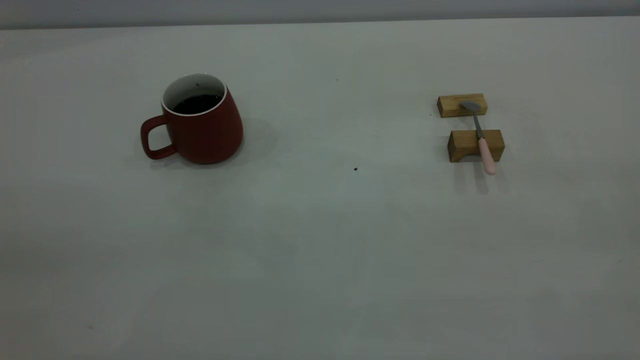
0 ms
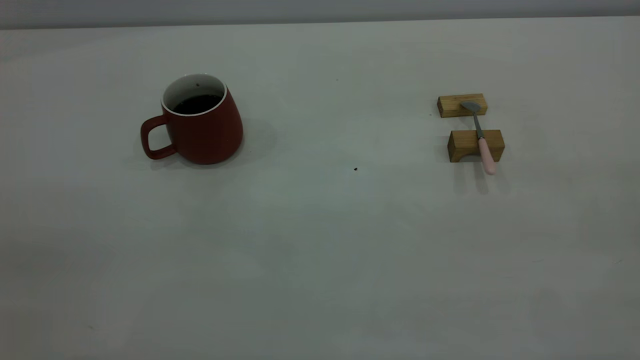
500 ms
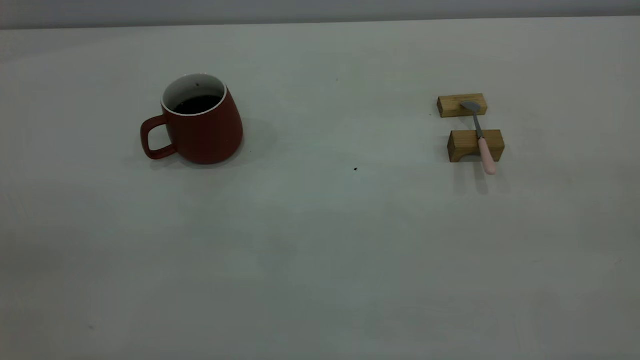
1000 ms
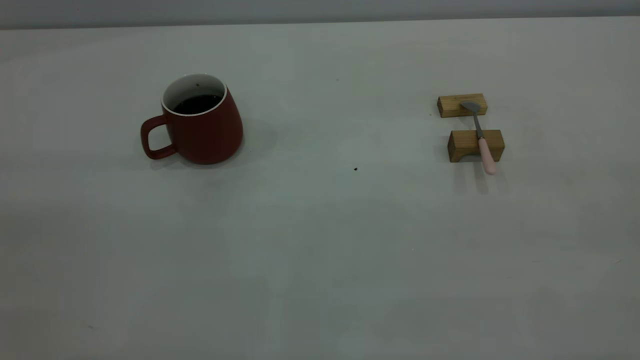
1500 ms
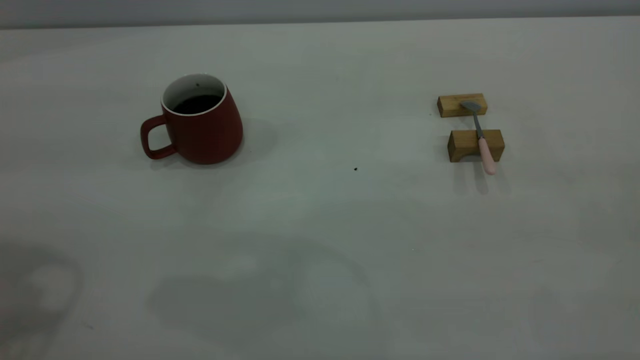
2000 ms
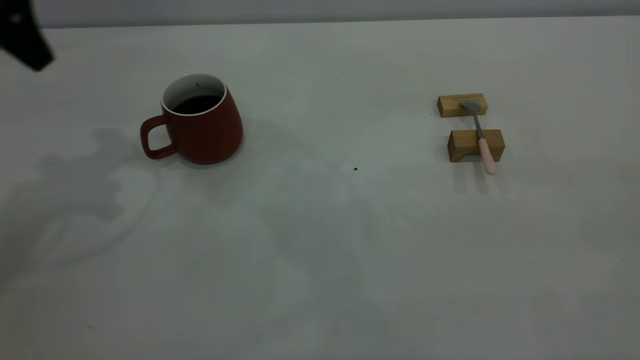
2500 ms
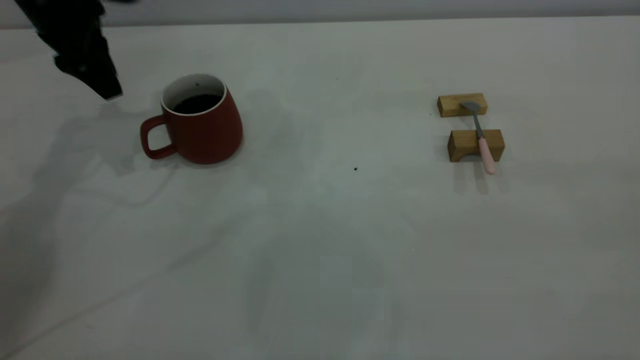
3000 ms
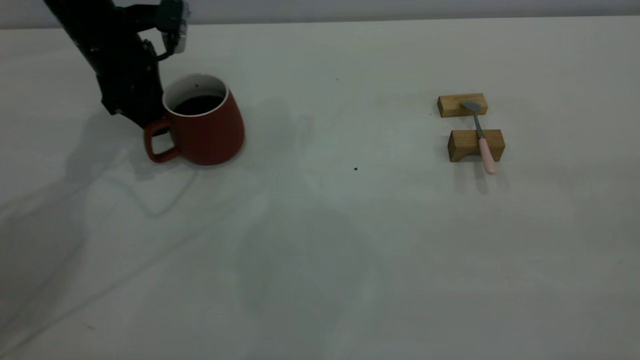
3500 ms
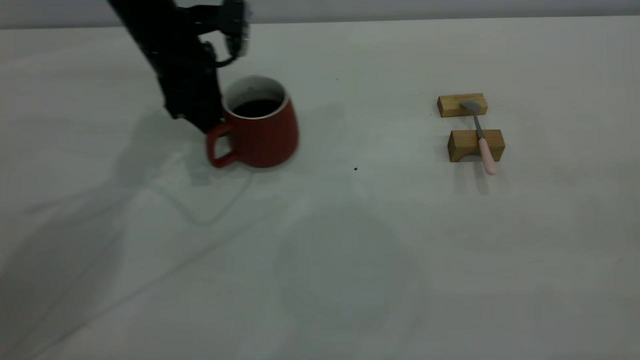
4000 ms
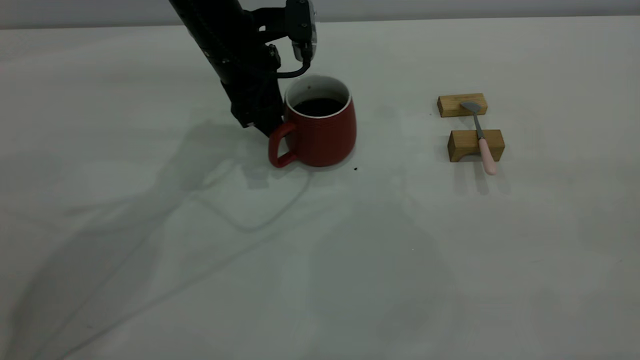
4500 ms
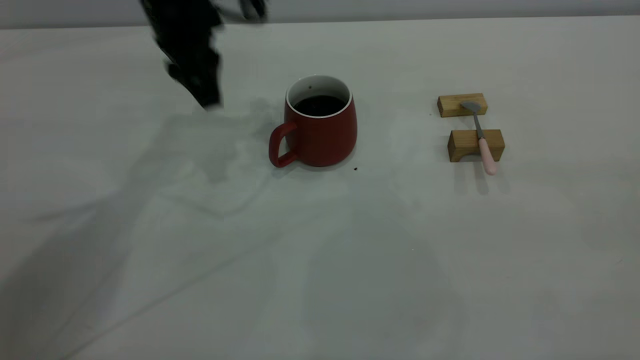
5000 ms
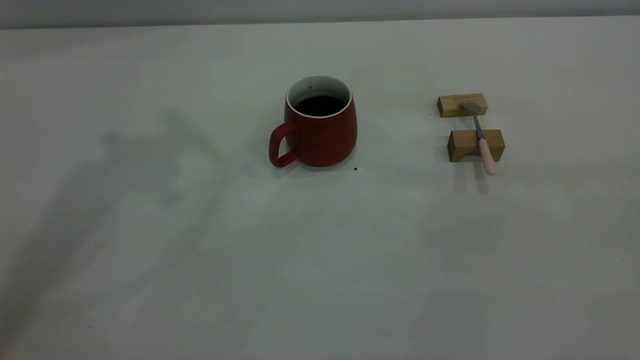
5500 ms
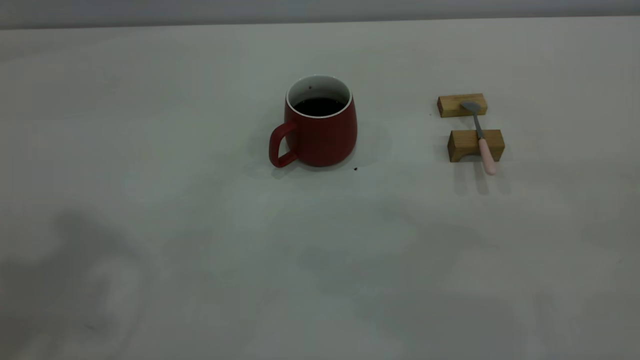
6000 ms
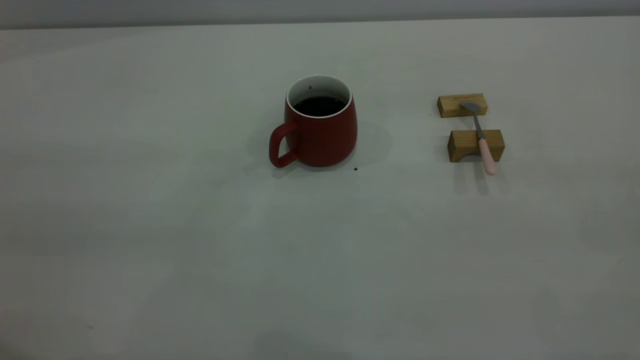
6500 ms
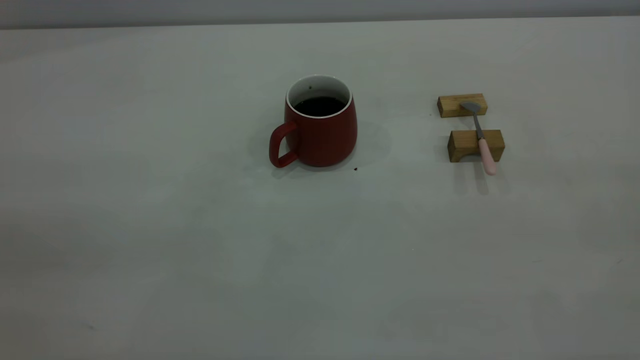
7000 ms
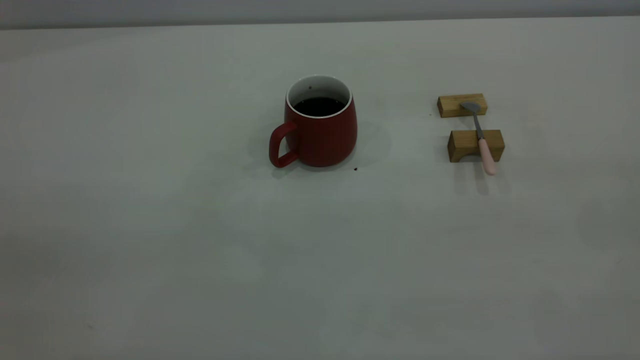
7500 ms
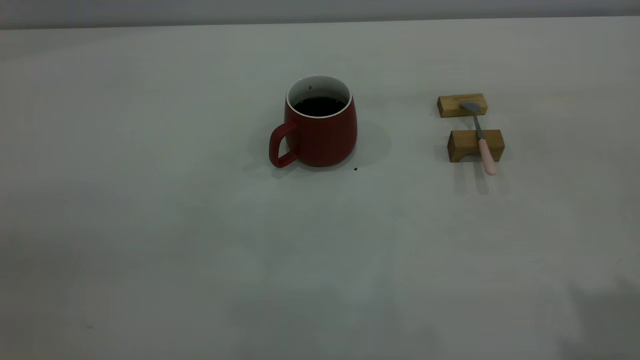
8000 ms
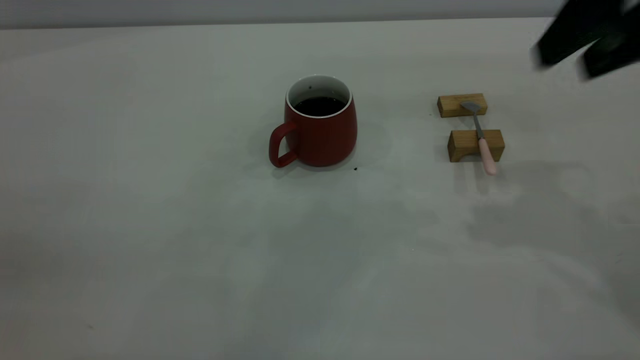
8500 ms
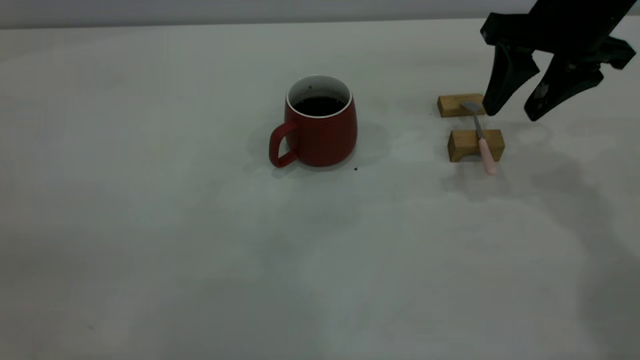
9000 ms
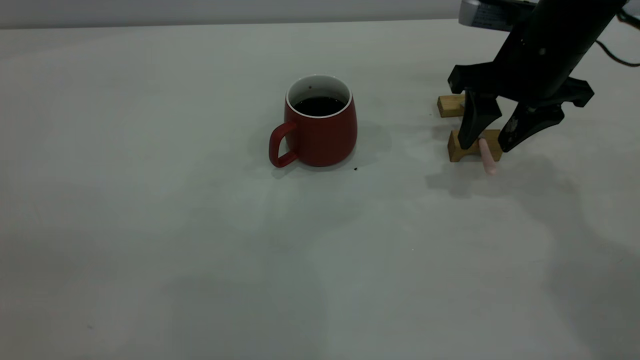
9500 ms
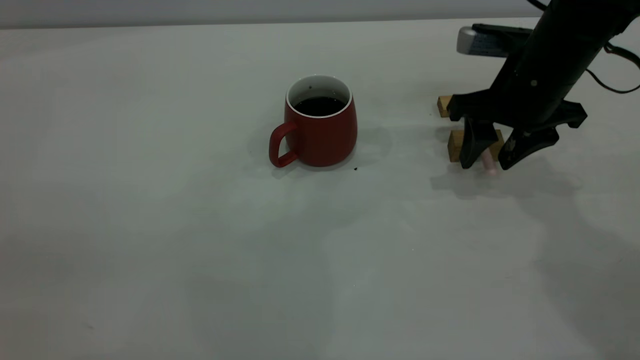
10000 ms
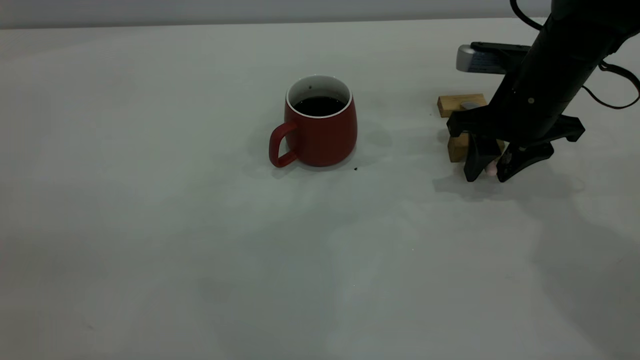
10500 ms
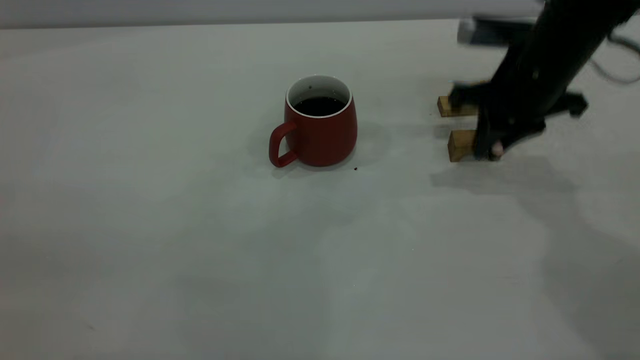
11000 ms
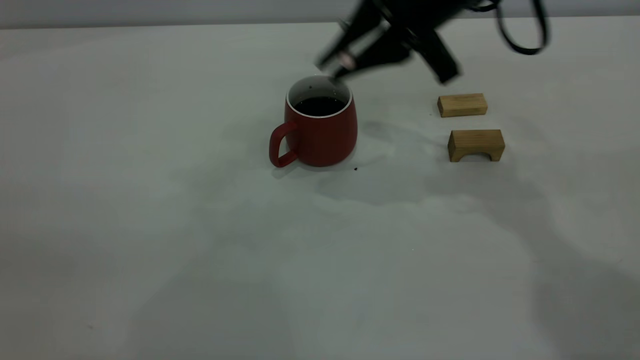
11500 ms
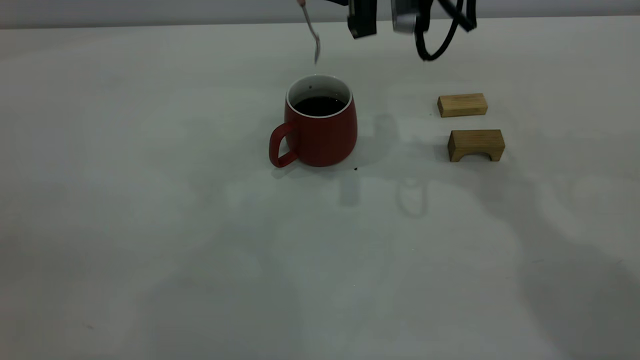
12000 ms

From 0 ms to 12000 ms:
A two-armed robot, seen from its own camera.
Step, from 0 ms to 4500 ms: Move the cup with coffee to the center of view.
Step, from 5000 ms to 11000 ms: Pick up the spoon.
From 2000 ms to 4000 ms: The left gripper travels forward, downward and to the right by approximately 35 cm.
From 4000 ms to 6000 ms: The left gripper travels upward and backward by some 40 cm.
From 8000 ms to 10000 ms: The right gripper is displaced downward and forward by approximately 35 cm.
From 10000 ms to 12000 ms: The right gripper goes about 15 cm to the left and upward, and closes up.

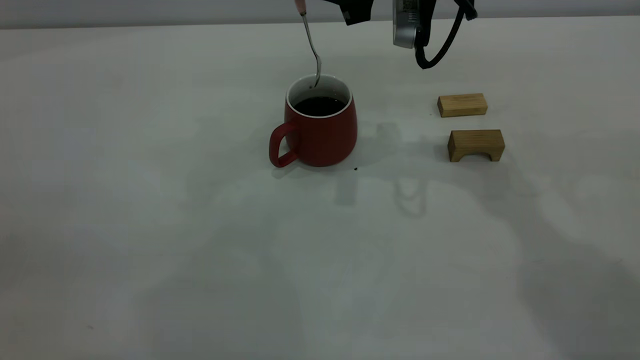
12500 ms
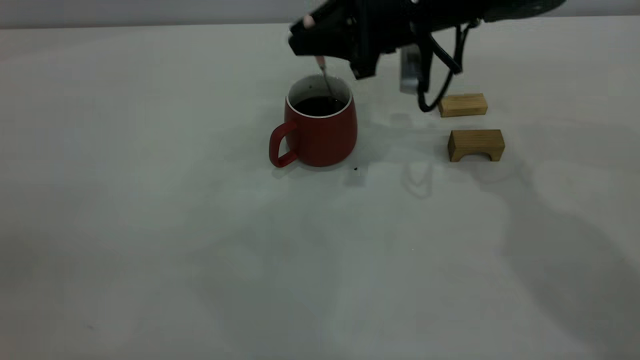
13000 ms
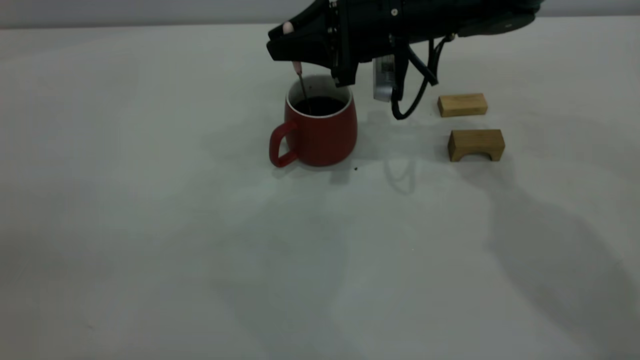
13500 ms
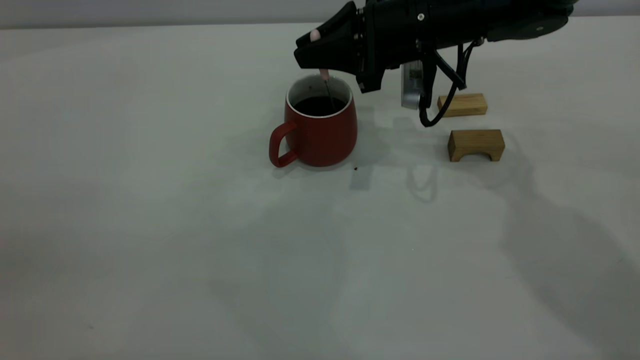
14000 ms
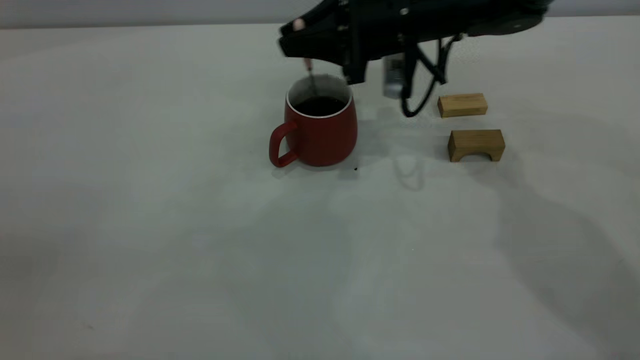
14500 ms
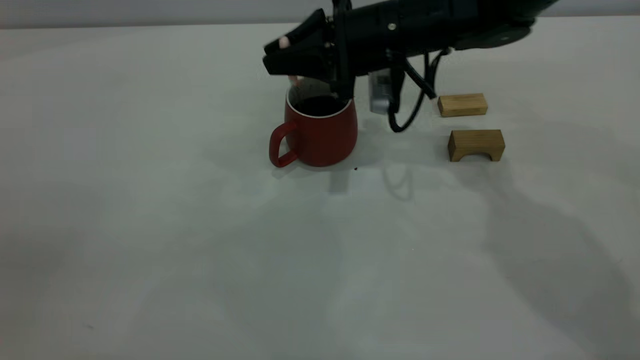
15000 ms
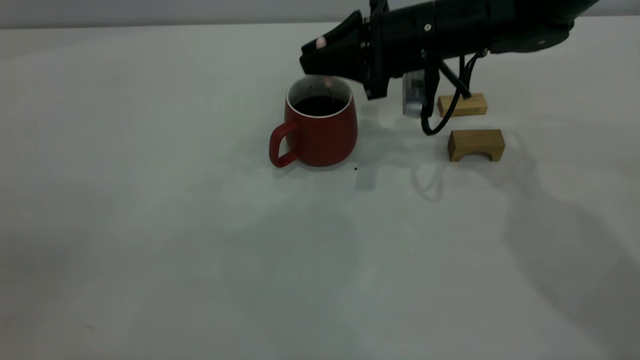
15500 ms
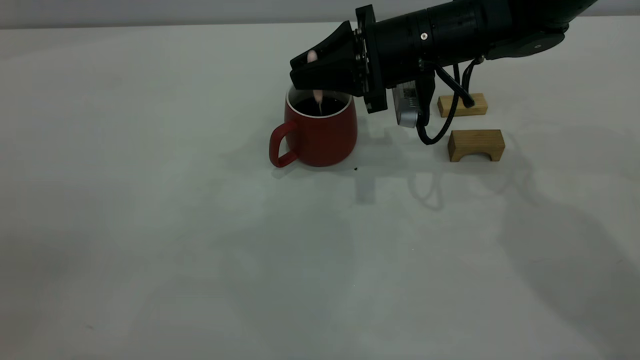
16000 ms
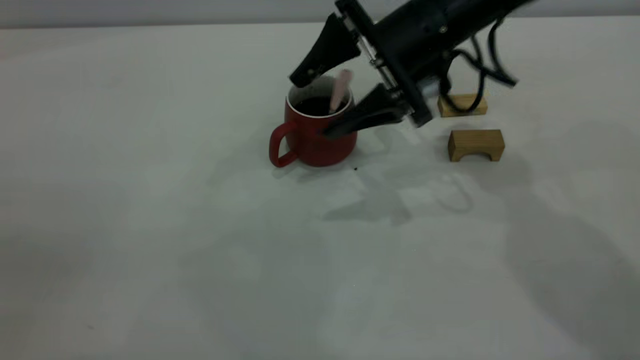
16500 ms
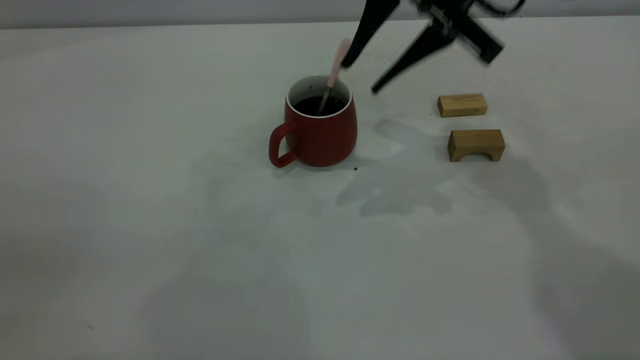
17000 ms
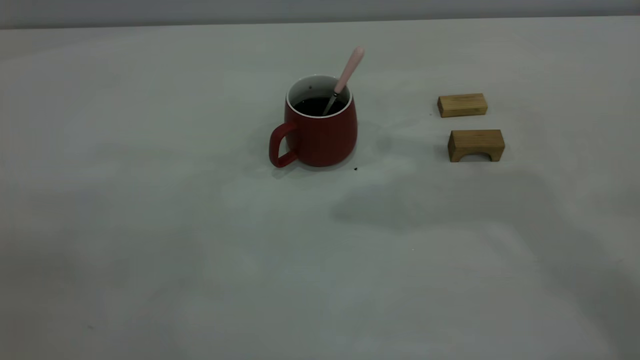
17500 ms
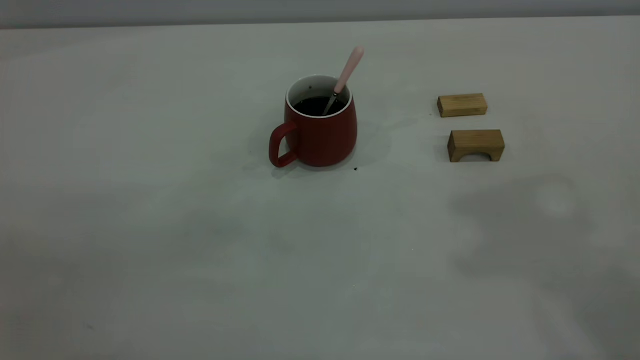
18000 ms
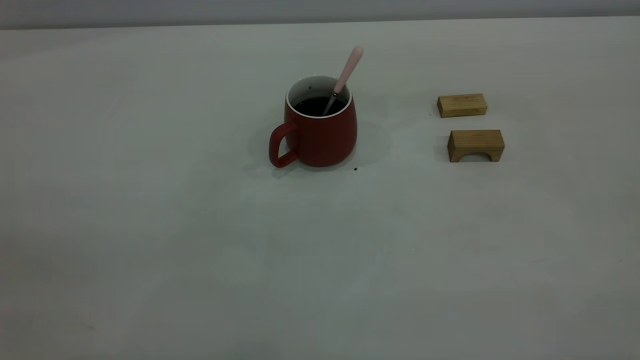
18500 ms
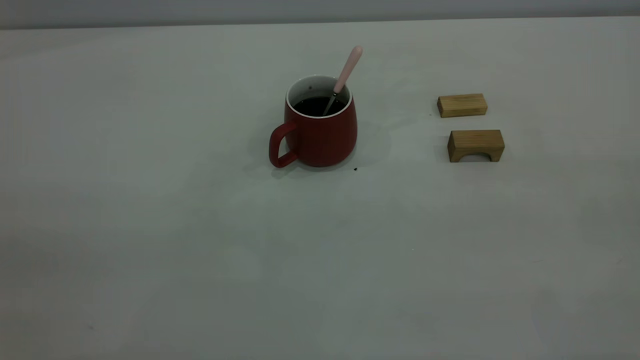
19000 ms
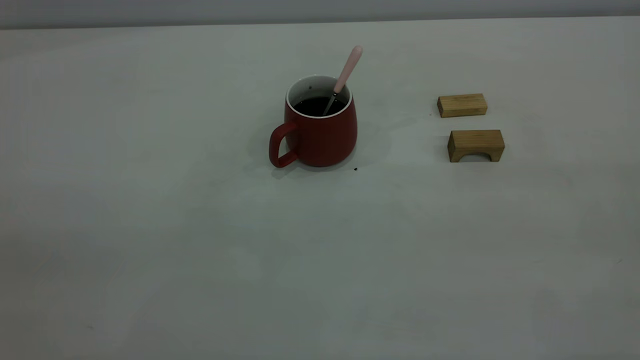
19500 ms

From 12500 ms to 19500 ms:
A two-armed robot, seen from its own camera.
Step, from 12500 ms to 16500 ms: Stir the coffee in the cup.
From 12500 ms to 14500 ms: The right gripper heads downward, covering roughly 10 cm.
From 14500 ms to 16000 ms: The grippers stay close to where they were, moving slightly.
From 16000 ms to 17500 ms: The right gripper shifts roughly 35 cm upward, and opens, then closes again.

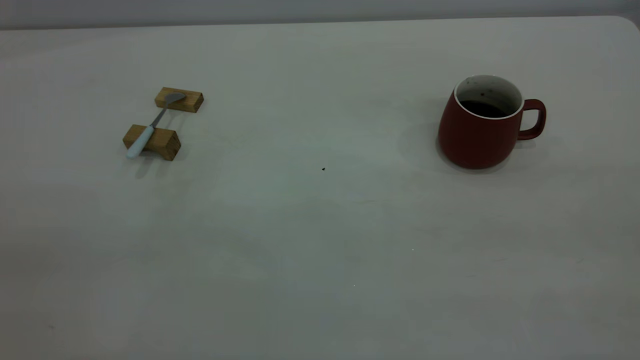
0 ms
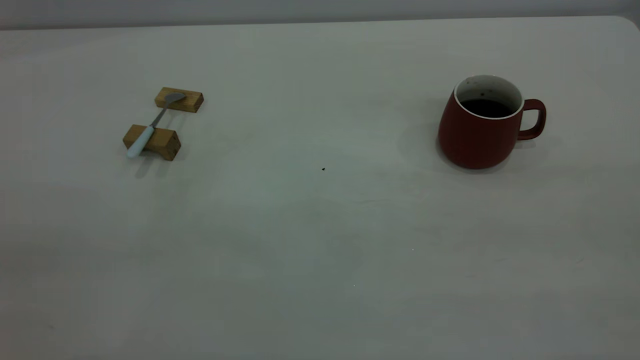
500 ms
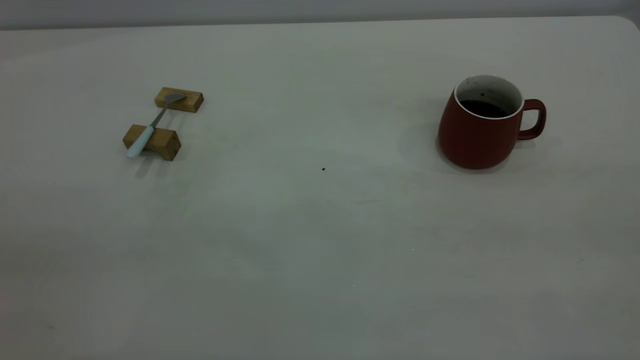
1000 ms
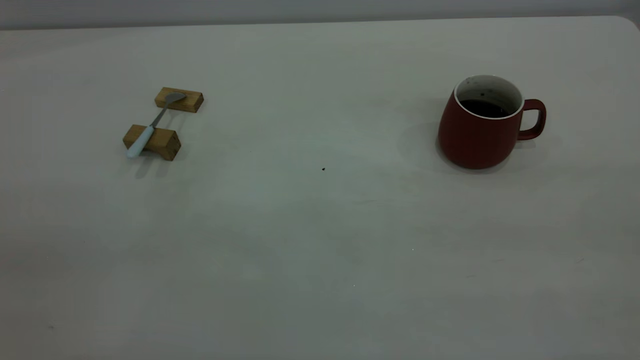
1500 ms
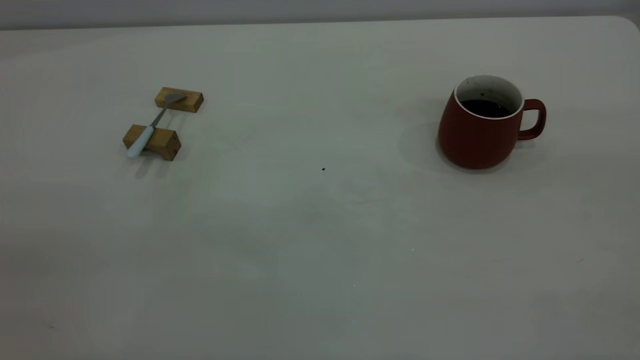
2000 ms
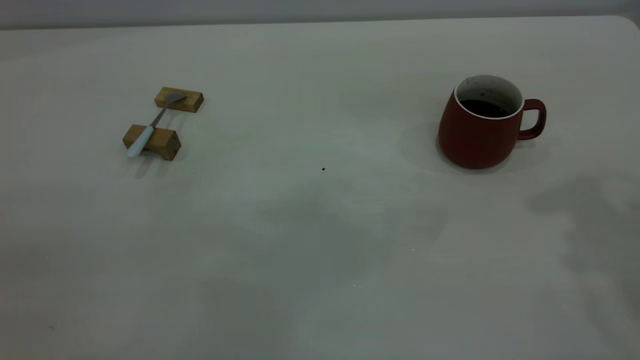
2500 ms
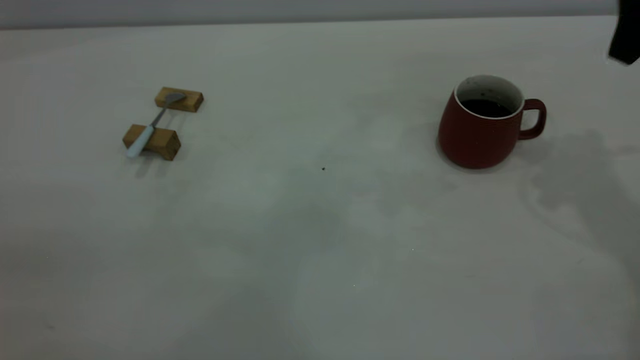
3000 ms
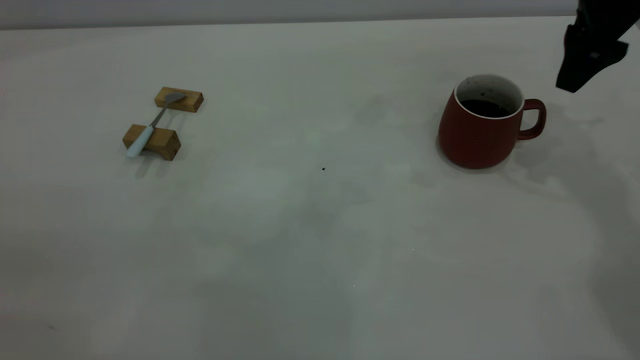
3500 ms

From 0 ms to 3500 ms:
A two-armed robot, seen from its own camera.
From 2000 ms to 3500 ms: The right gripper is displaced forward and downward by about 40 cm.
